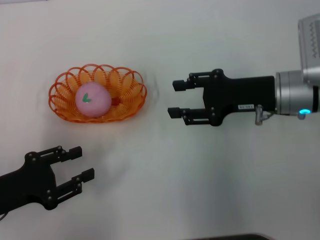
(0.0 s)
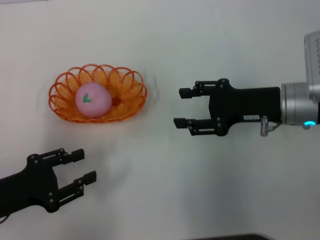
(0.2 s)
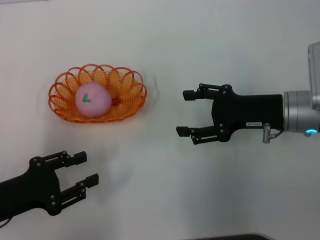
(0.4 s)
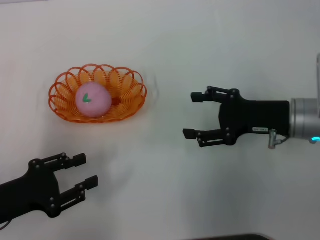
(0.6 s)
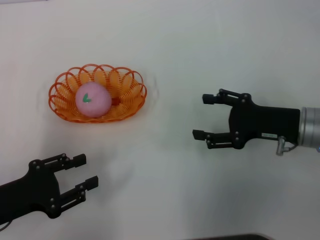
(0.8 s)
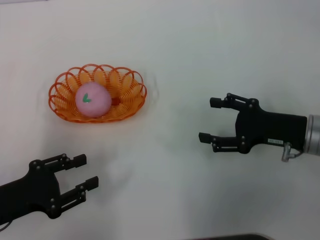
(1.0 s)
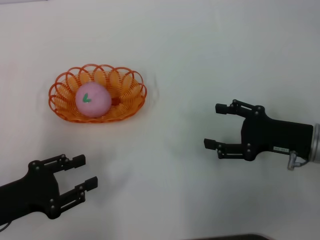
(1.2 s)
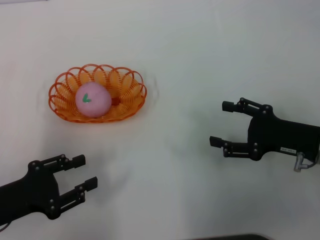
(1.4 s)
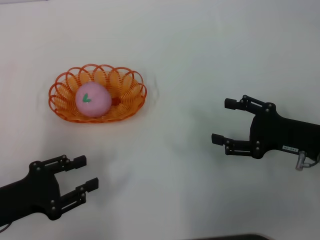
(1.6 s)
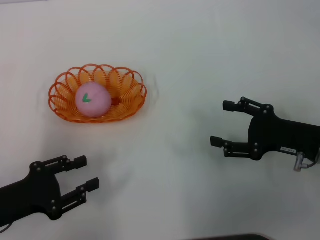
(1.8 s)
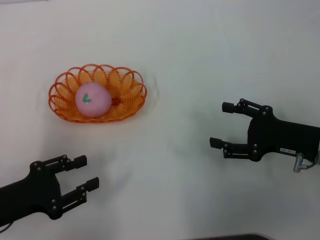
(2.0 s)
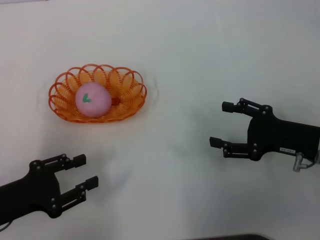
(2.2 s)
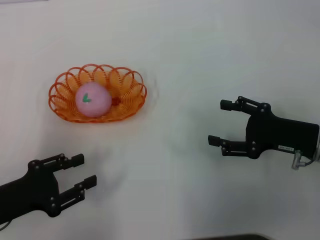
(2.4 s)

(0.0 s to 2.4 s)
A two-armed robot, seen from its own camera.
0.0 s - 1.2 s: The right gripper is displaced backward, downward and to the right by approximately 10 cm, and opens up.
1.2 s - 2.4 s: Neither gripper changes place.

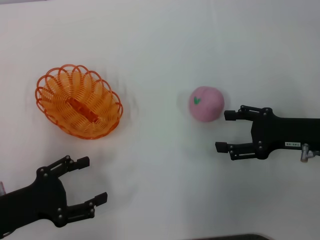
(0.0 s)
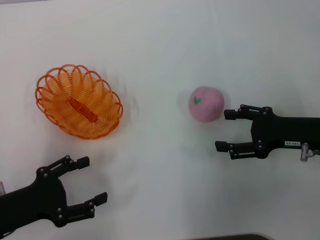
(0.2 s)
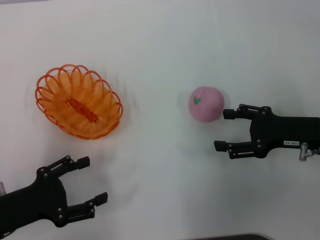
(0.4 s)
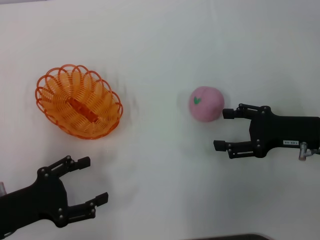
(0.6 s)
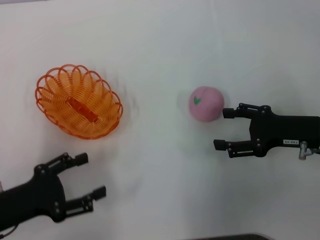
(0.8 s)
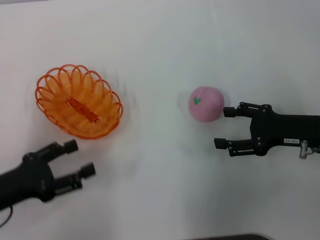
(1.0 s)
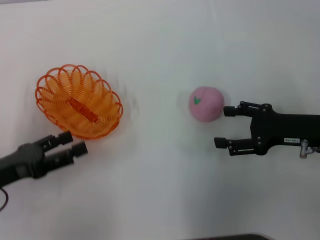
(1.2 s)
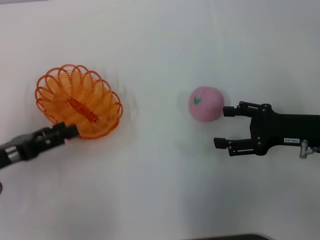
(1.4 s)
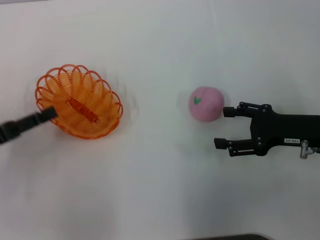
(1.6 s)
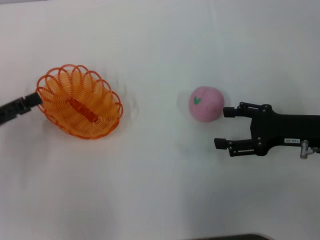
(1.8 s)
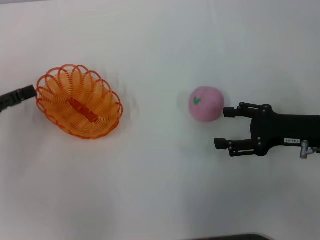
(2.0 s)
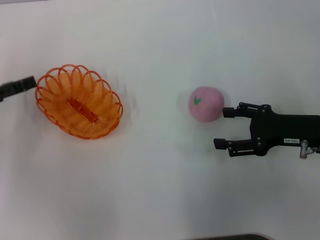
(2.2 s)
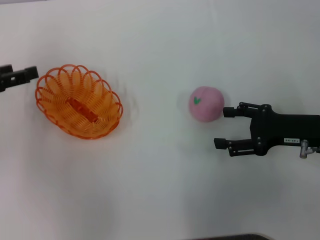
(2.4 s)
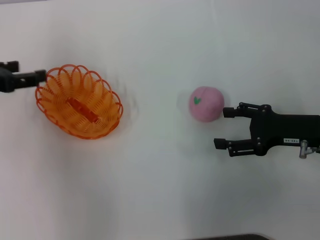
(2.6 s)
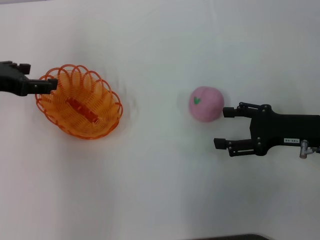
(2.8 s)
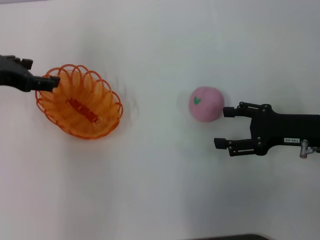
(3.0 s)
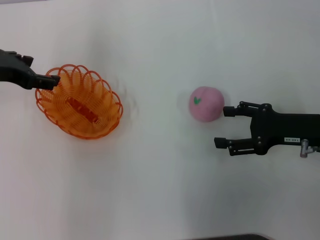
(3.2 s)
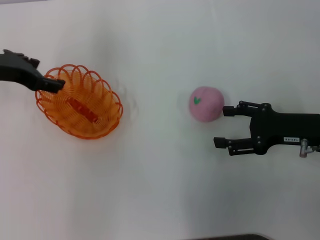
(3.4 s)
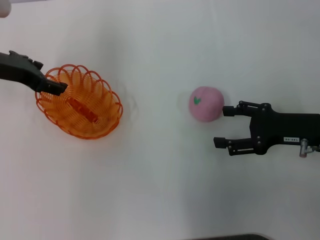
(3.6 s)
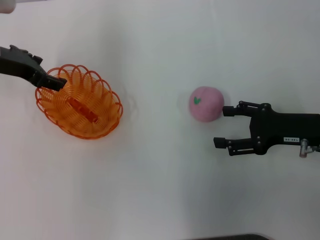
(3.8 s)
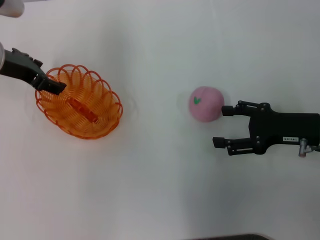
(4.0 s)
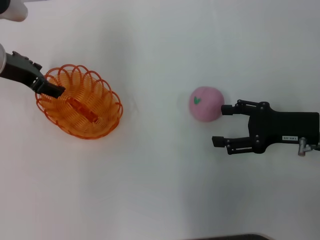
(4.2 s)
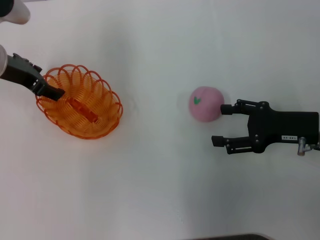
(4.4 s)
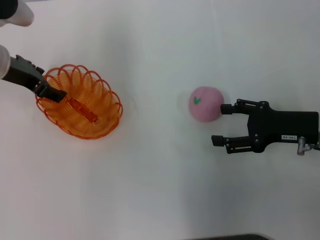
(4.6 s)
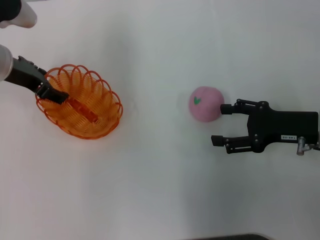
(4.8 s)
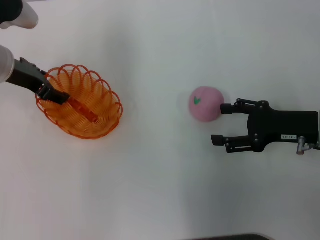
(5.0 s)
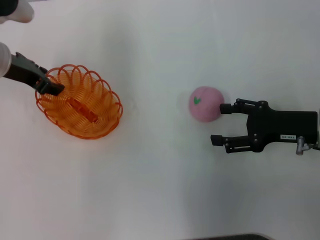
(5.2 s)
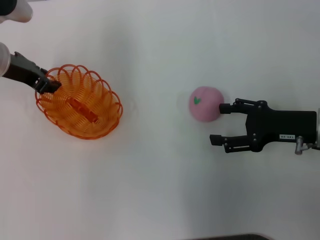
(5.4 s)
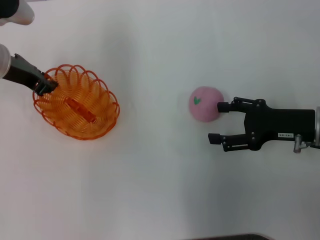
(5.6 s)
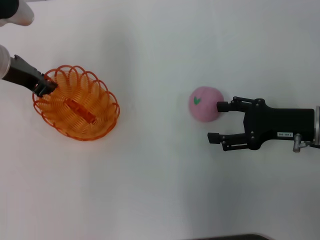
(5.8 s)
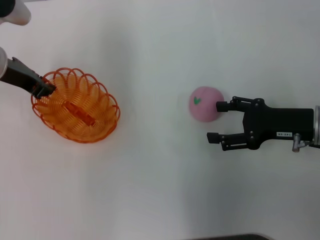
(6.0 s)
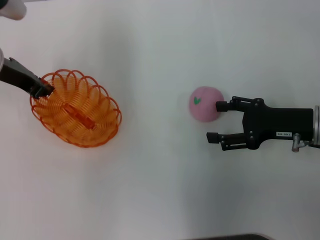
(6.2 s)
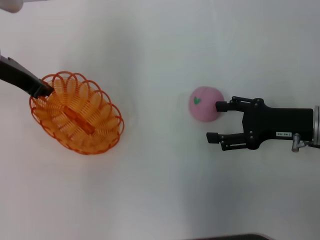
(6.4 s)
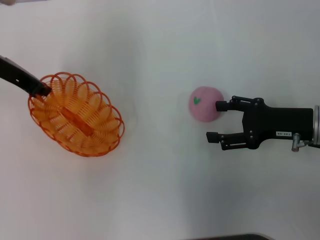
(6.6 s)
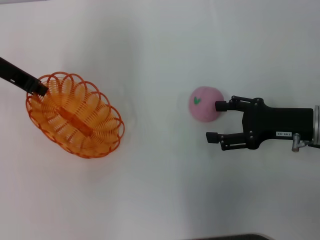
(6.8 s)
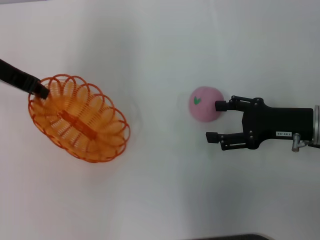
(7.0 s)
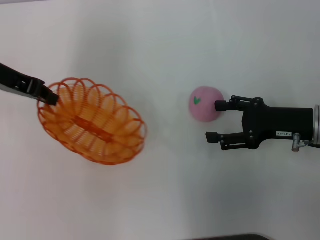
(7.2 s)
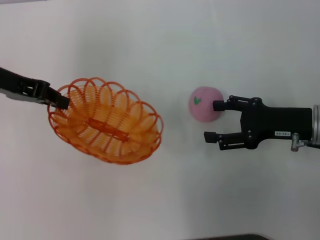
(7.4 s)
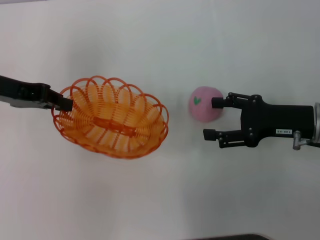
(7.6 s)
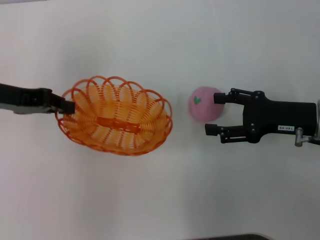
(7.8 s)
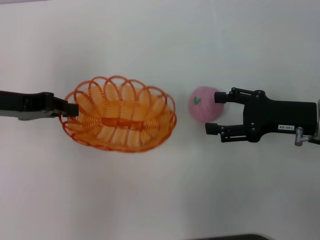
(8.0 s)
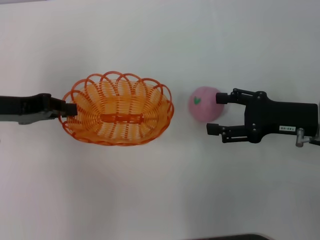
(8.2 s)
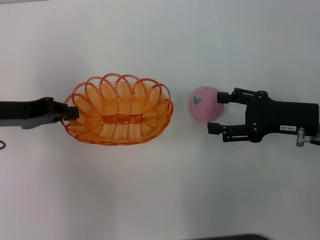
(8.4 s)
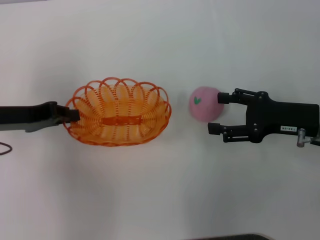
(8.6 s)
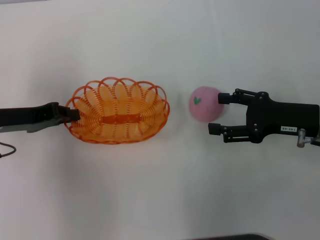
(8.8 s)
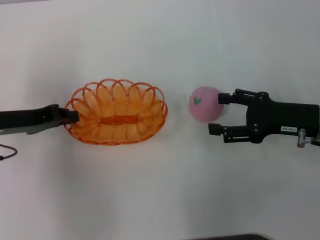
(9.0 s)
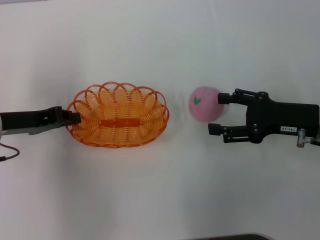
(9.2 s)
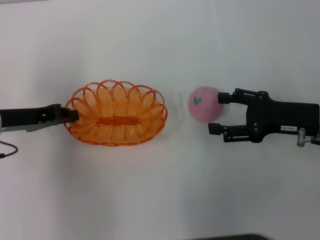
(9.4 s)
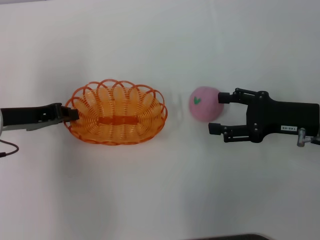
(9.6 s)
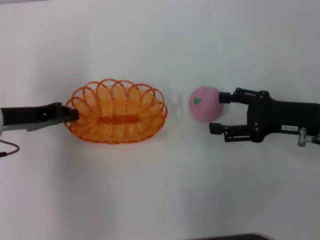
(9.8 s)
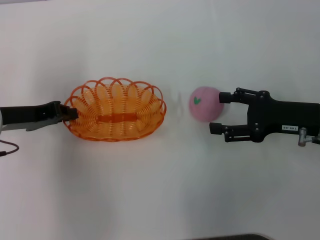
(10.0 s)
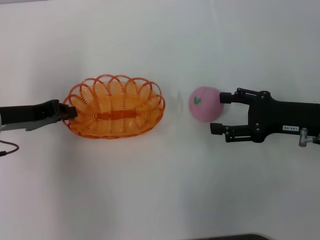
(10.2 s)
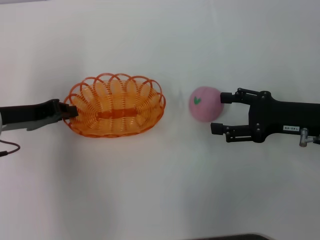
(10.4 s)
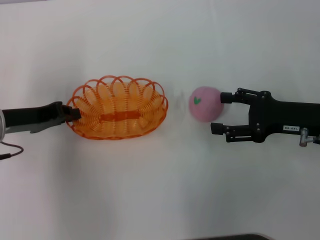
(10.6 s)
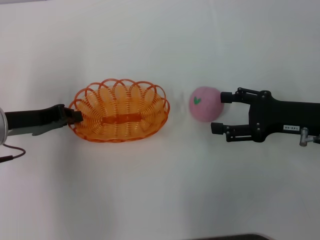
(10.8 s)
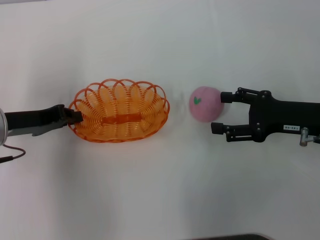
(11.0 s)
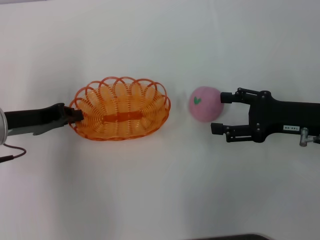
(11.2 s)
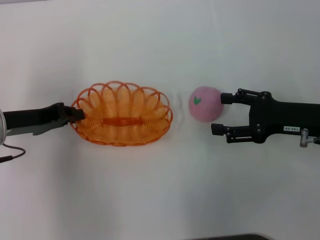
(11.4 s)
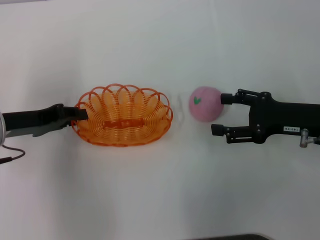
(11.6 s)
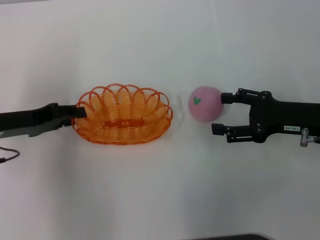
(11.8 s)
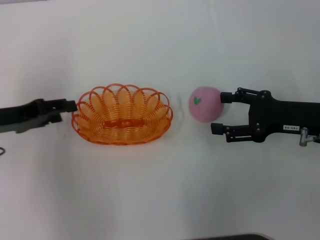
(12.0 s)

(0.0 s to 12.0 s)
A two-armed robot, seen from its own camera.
Step, 0.0 s - 6.6 s: Pick up the basket with the left gripper.
0.0 s - 1.6 s: The left gripper travels forward by approximately 5 cm.
1.6 s - 3.0 s: The left gripper is displaced forward and upward by roughly 15 cm.
3.0 s - 4.4 s: The left gripper ends up approximately 5 cm from where it was.
4.4 s - 6.0 s: The left gripper closes up.
6.0 s - 7.6 s: The left gripper changes place by roughly 5 cm.
7.6 s - 9.0 s: The left gripper shifts roughly 10 cm downward.
9.0 s - 10.4 s: Both grippers stay put.
10.4 s - 12.0 s: The left gripper opens its fingers.

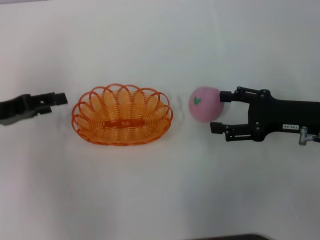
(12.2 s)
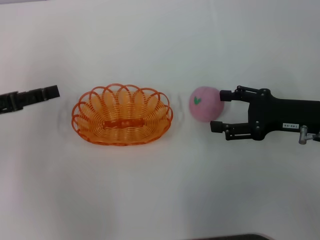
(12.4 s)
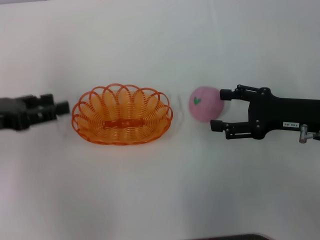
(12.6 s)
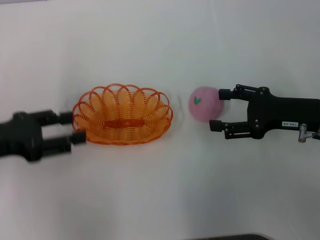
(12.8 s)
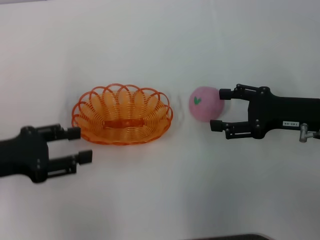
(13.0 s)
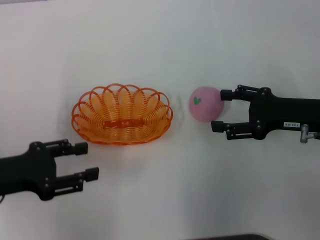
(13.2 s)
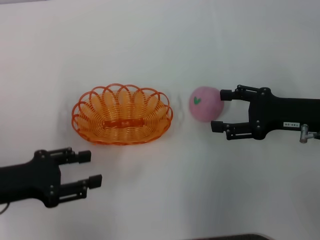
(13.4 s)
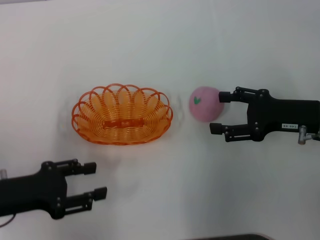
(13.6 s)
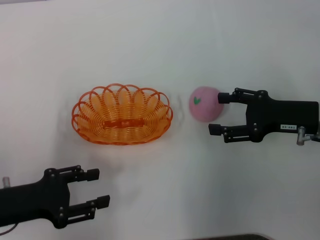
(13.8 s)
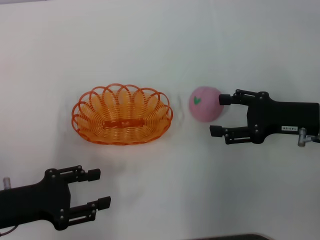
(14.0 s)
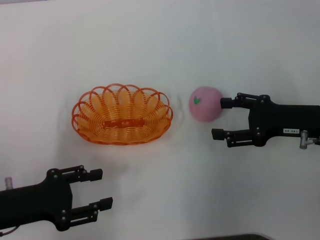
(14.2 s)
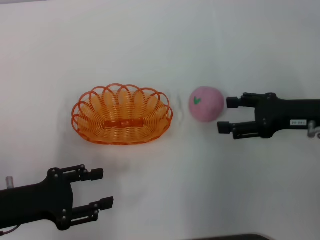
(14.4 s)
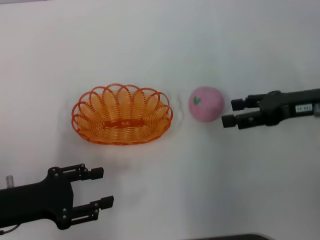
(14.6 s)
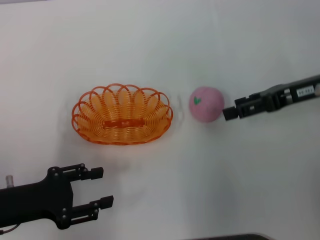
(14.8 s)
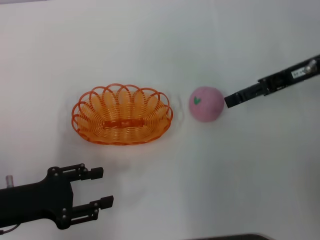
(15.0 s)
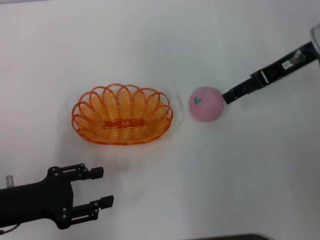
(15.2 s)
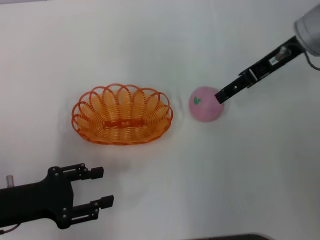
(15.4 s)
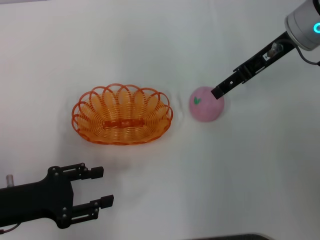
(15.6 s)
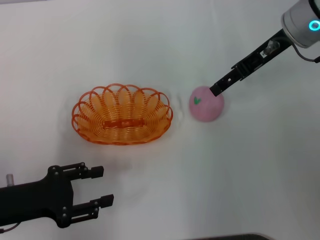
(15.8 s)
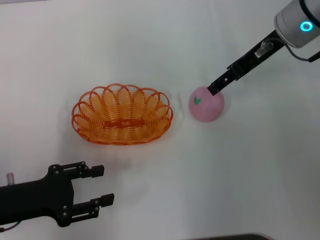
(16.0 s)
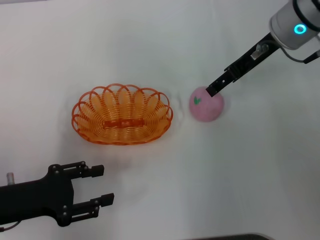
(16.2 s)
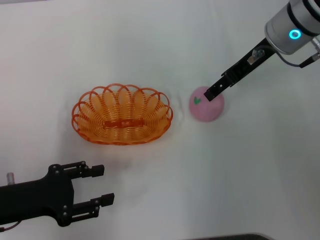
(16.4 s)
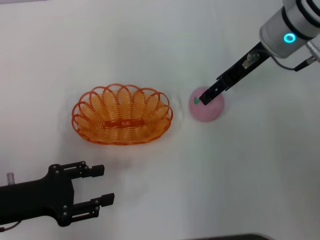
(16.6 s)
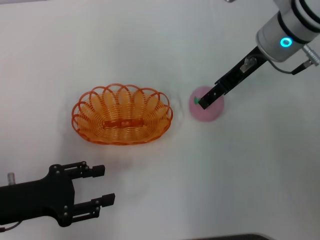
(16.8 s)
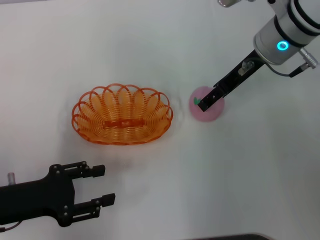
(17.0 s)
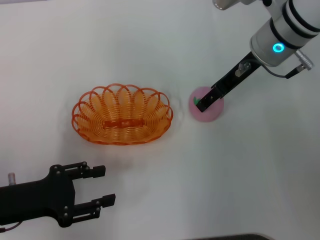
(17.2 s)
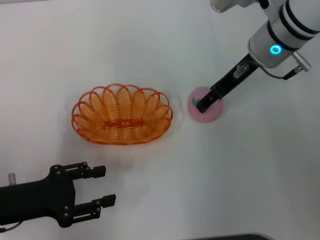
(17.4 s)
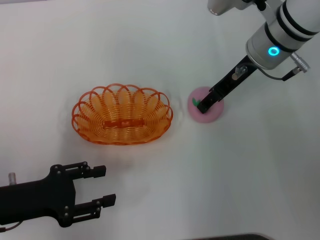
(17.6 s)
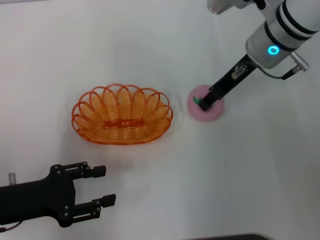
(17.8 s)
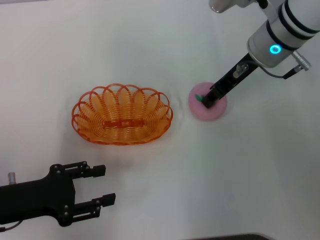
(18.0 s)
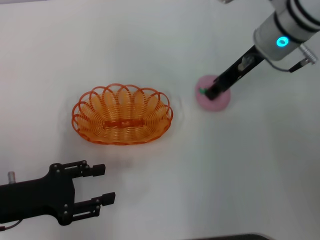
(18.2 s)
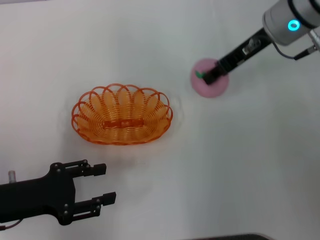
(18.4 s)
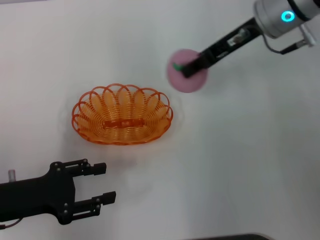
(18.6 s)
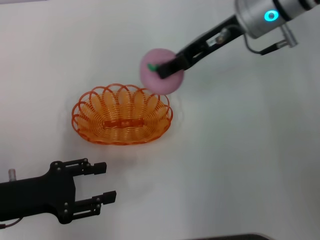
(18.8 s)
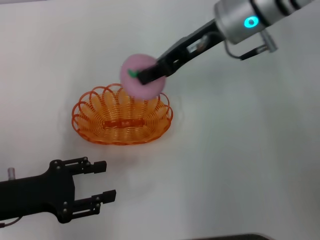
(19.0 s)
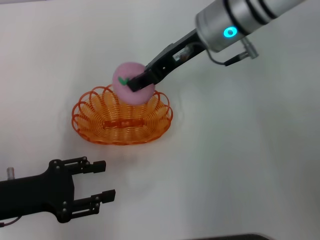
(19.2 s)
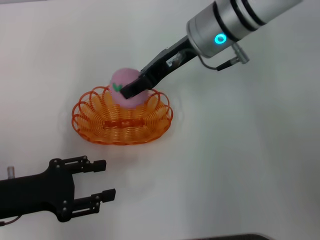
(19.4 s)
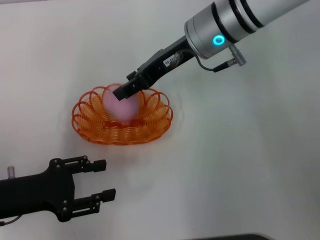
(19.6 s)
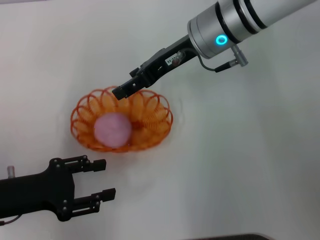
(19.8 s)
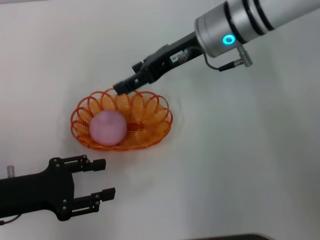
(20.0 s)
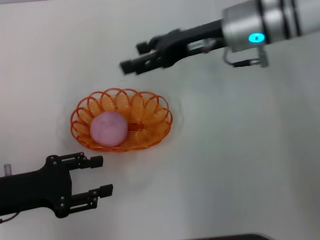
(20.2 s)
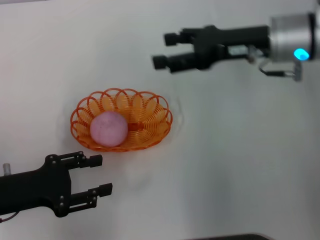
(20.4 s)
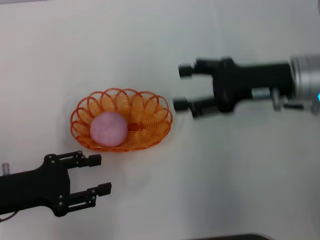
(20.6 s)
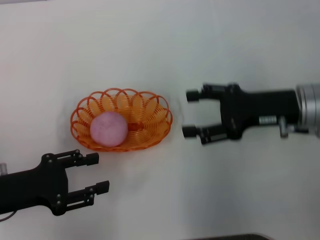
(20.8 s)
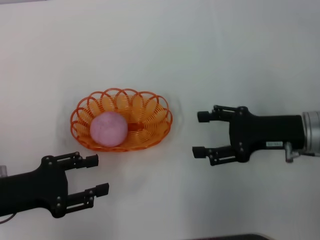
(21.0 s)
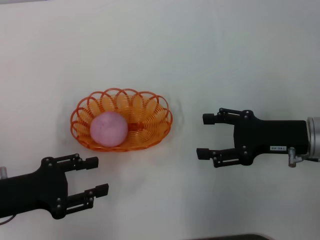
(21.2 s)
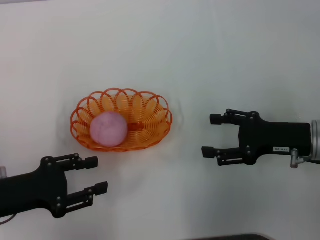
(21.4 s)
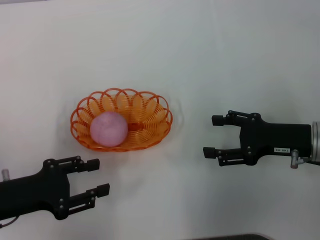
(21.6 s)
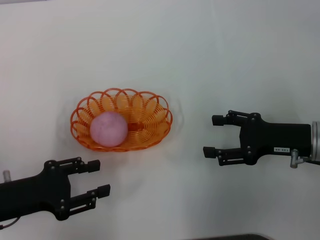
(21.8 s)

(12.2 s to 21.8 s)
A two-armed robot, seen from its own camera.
Step, 12.4 s - 18.6 s: Pick up the peach with the right gripper.
Step, 18.8 s - 20.0 s: Place the peach into the basket with the right gripper.
12.2 s - 13.8 s: The left gripper moves backward and downward, approximately 10 cm.
13.8 s - 15.4 s: The right gripper moves upward, forward and to the left, about 15 cm.
15.4 s - 17.0 s: The right gripper shifts by about 5 cm.
17.0 s - 18.6 s: The right gripper closes up.
18.6 s - 20.2 s: The right gripper goes to the left and returns, roughly 10 cm each way, and opens its fingers.
20.2 s - 21.8 s: The right gripper is displaced backward, to the right and downward by about 20 cm.